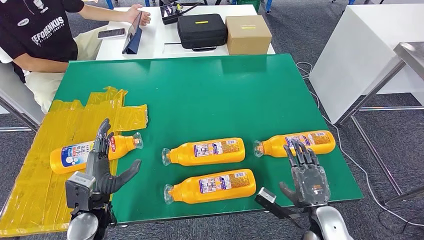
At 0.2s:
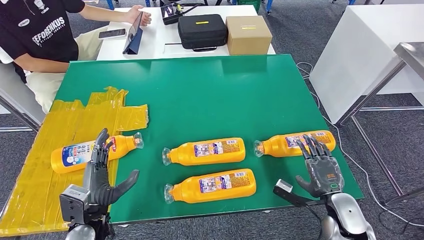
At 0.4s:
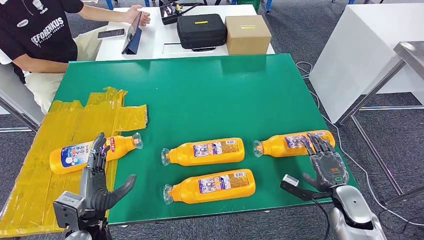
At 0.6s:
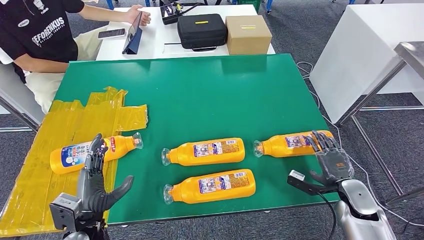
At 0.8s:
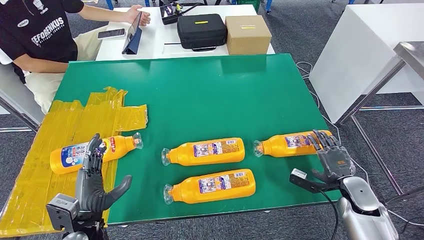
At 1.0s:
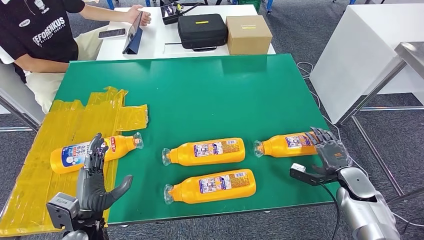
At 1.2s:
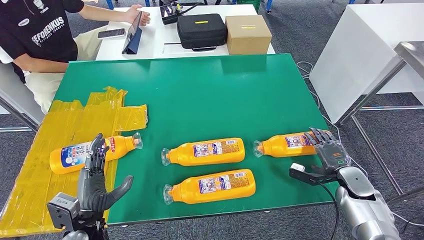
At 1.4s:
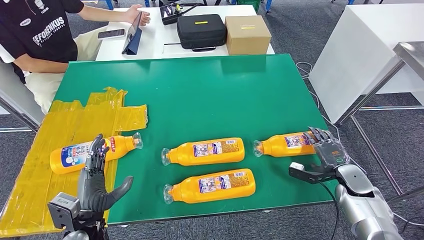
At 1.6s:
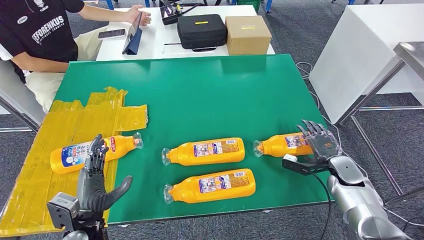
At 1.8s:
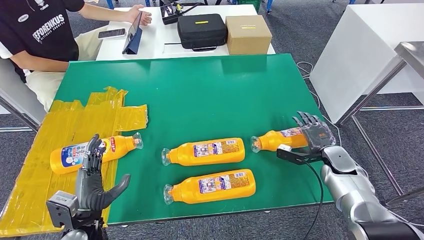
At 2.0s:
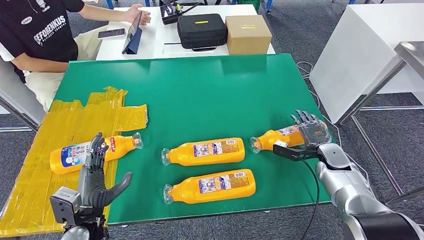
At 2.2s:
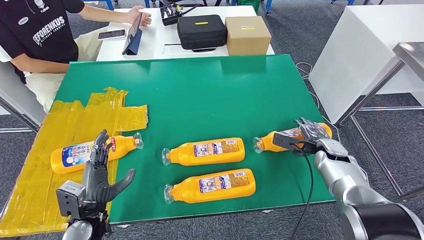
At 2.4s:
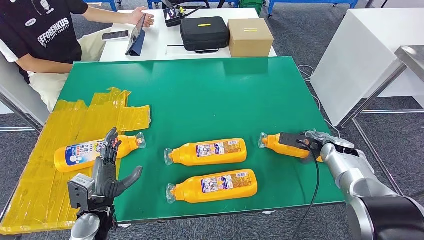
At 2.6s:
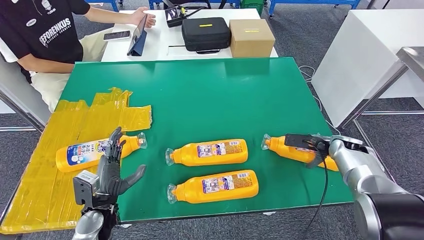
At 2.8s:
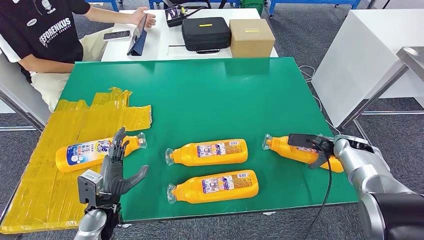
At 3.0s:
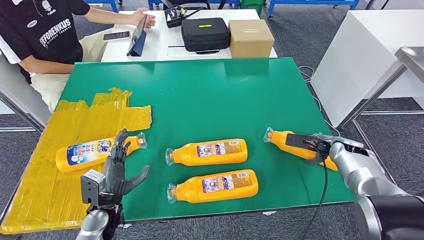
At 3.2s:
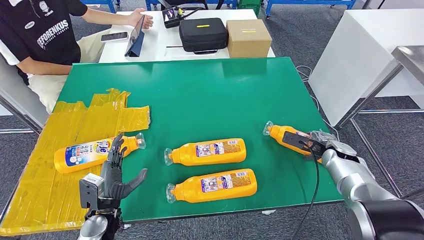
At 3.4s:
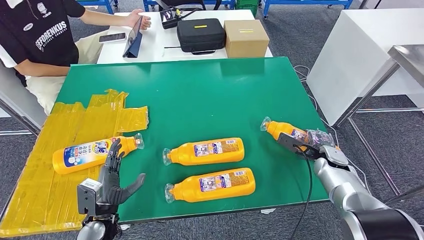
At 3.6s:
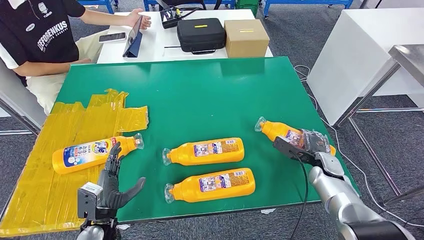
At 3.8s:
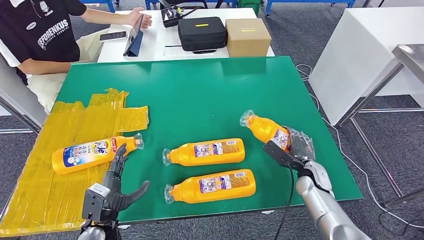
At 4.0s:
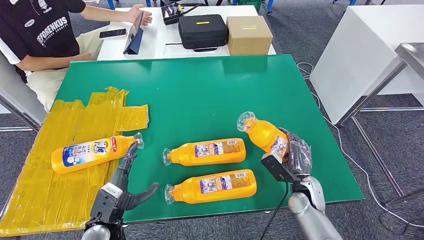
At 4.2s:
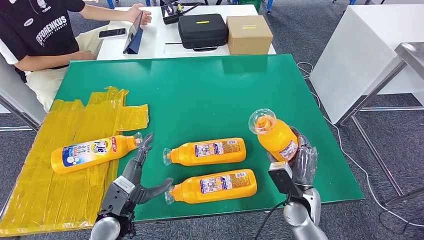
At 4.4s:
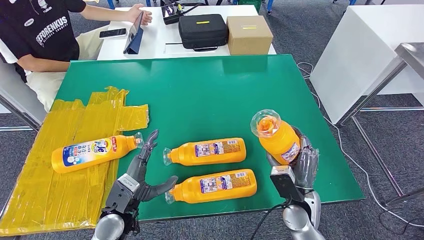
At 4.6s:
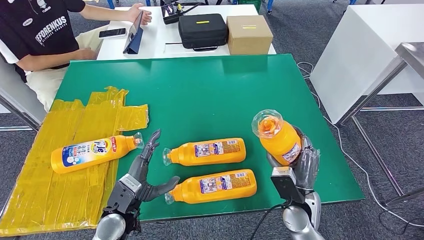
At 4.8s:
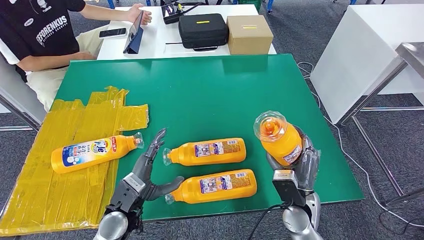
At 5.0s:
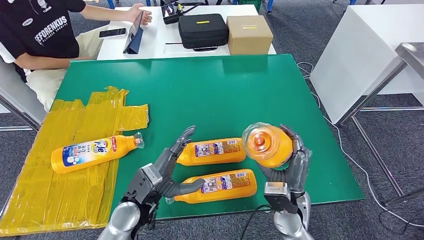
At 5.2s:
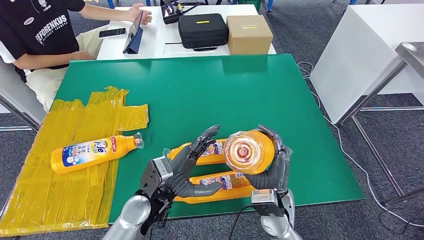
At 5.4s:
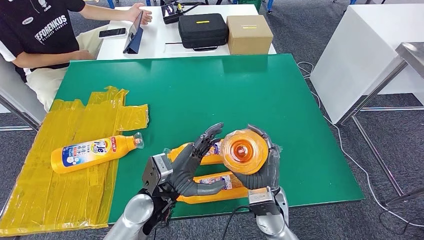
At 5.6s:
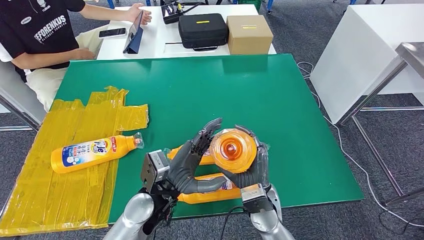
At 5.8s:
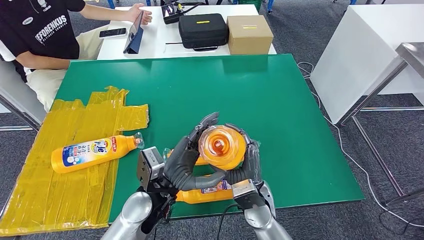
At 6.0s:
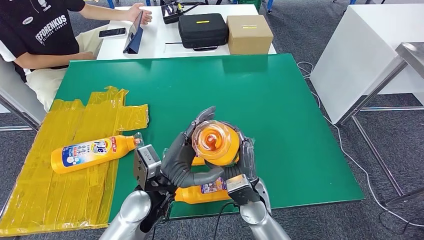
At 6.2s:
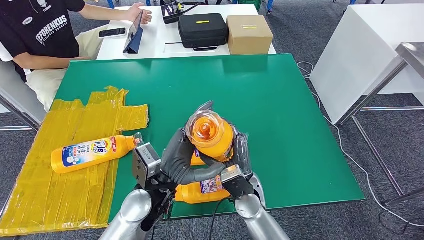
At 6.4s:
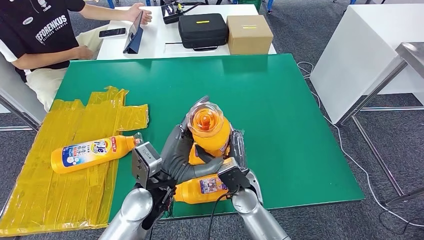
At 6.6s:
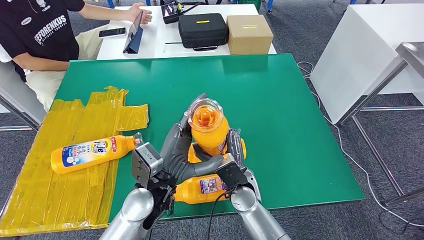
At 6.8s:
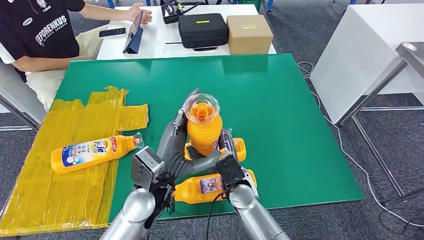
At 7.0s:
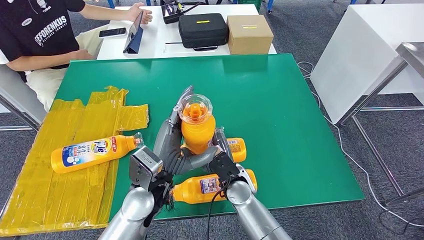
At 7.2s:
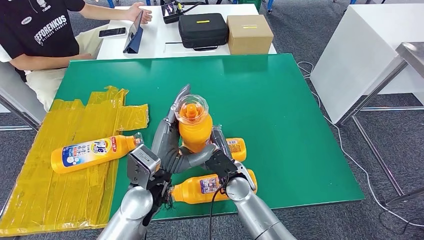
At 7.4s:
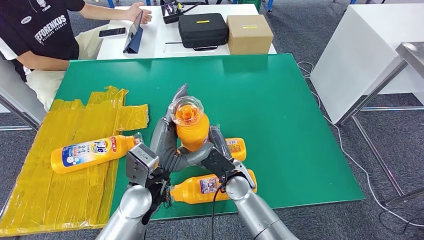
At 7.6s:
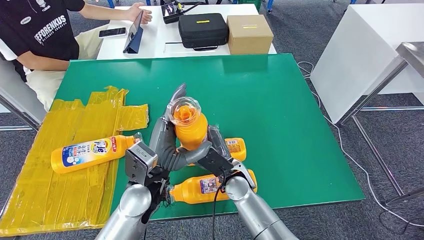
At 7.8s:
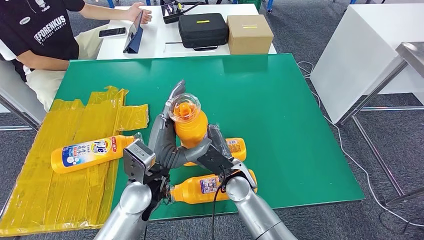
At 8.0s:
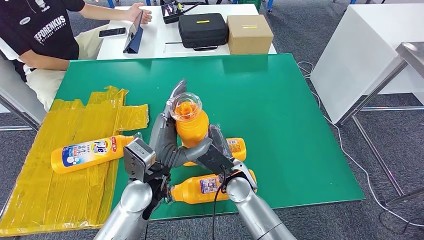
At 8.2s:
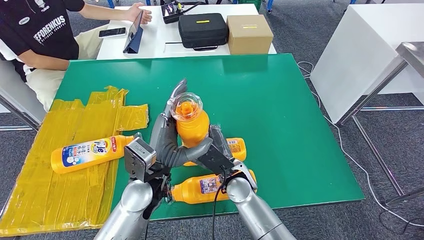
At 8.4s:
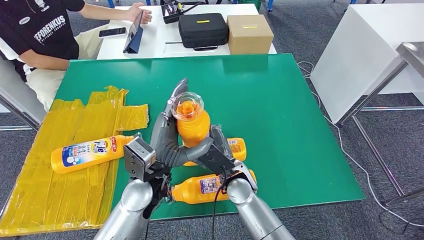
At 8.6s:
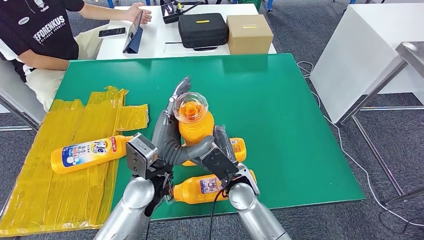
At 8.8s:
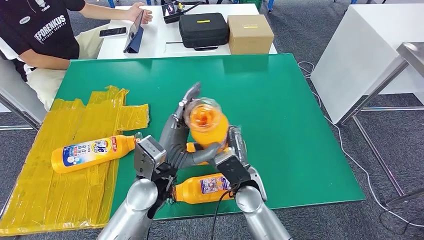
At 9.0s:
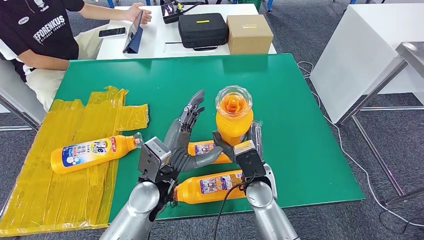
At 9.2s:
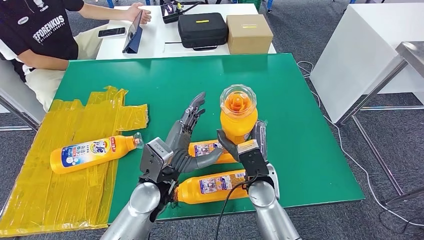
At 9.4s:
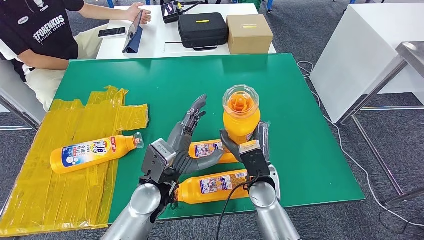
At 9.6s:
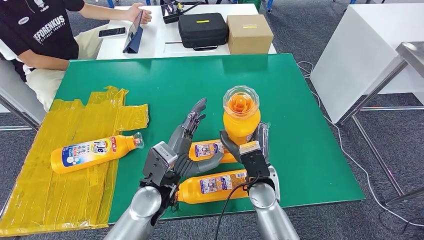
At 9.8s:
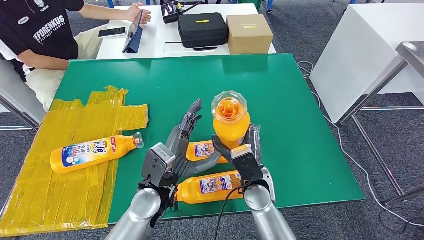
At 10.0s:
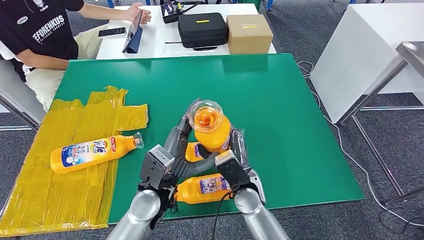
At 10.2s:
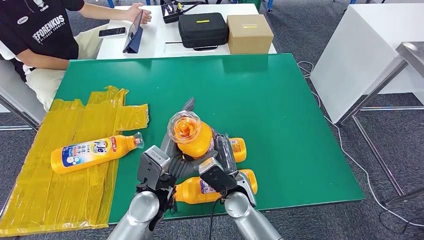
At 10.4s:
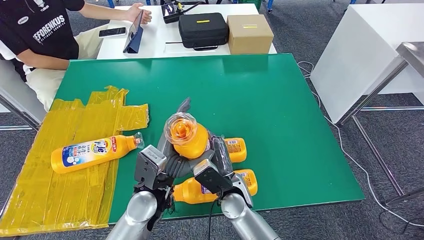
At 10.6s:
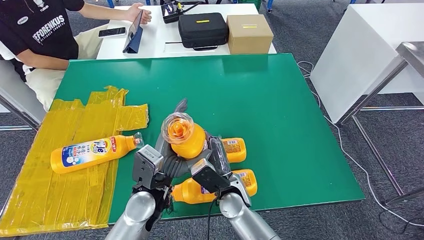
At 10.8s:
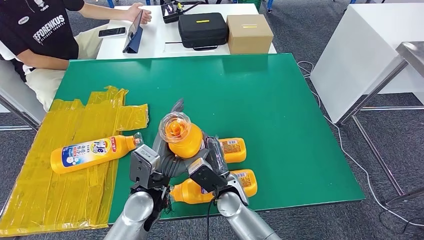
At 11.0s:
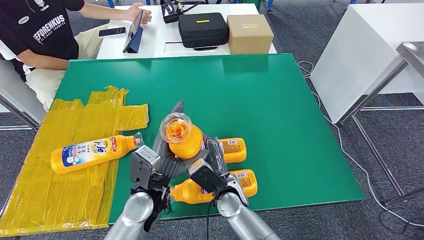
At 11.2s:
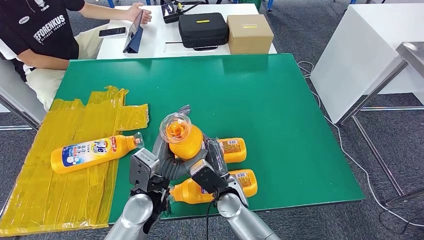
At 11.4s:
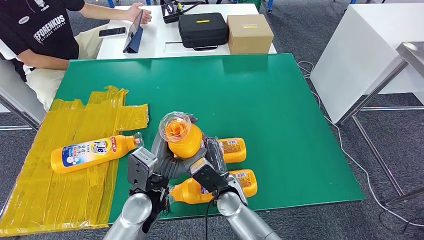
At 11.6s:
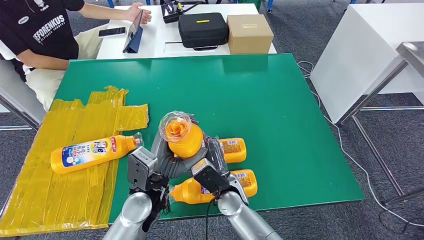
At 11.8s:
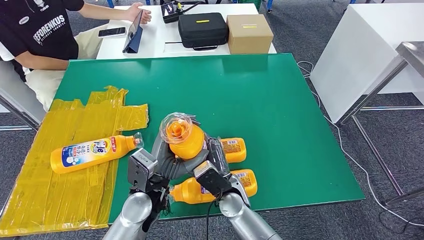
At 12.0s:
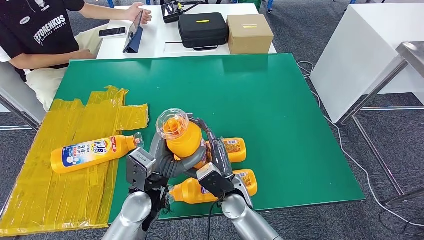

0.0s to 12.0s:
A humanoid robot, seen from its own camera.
Step, 0.0s to 6.8s: Pick up the bottle from the table.
0.0s to 1.6s: The right hand moves to the right and forward, approximately 20 cm.
4.4s to 6.0s: The left hand shifts some 15 cm to the right and upward; the right hand heads to the left, covering some 15 cm.
6.0s to 7.6s: The right hand changes place by roughly 5 cm.
7.6s to 9.0s: The right hand goes about 5 cm to the right.
9.0s to 10.4s: The right hand travels to the left by roughly 5 cm.
10.4s to 12.0s: There are only small adjustments of the hands.

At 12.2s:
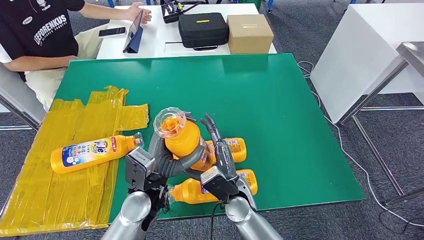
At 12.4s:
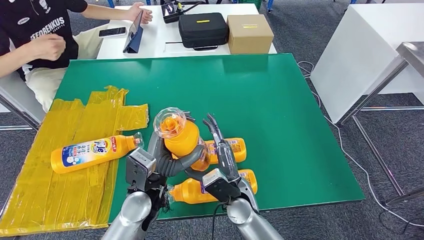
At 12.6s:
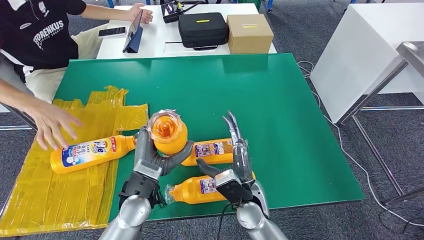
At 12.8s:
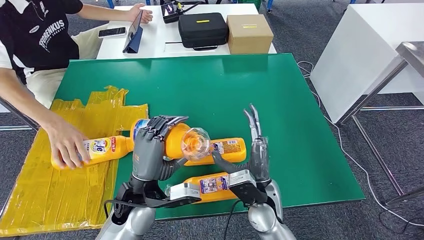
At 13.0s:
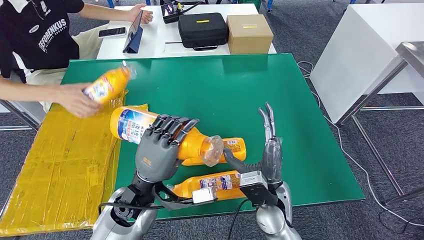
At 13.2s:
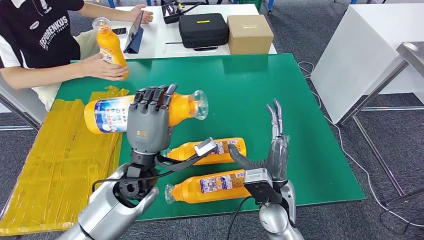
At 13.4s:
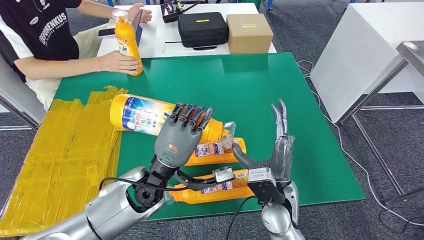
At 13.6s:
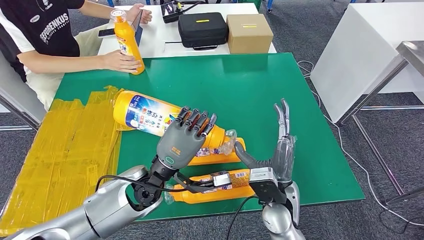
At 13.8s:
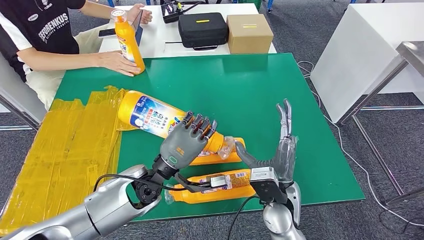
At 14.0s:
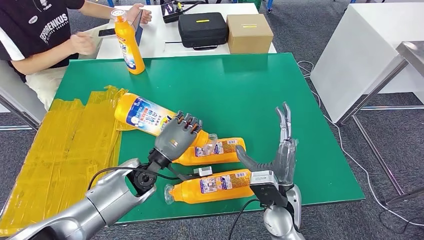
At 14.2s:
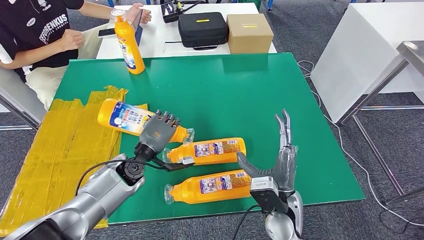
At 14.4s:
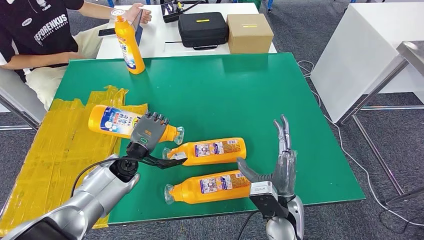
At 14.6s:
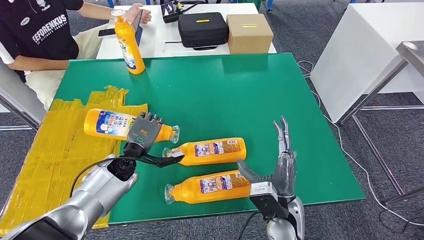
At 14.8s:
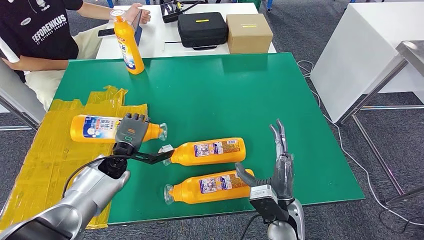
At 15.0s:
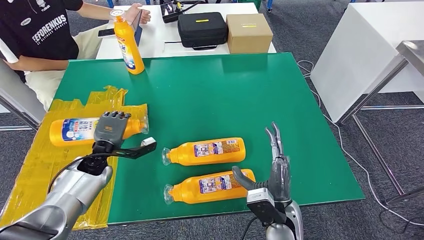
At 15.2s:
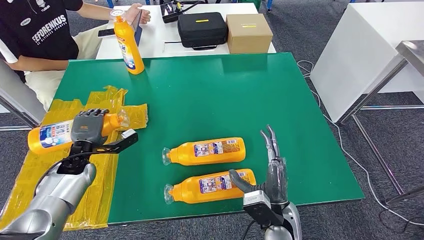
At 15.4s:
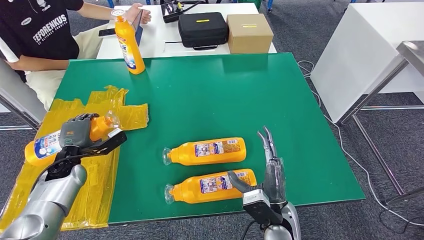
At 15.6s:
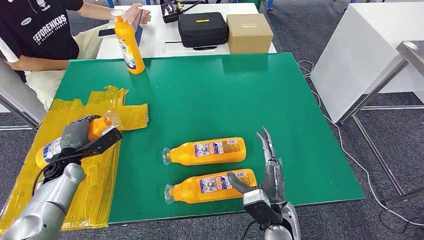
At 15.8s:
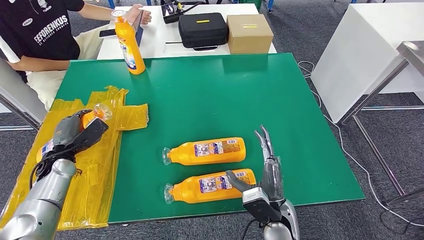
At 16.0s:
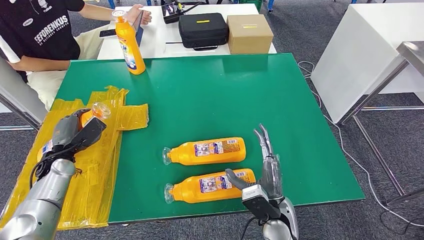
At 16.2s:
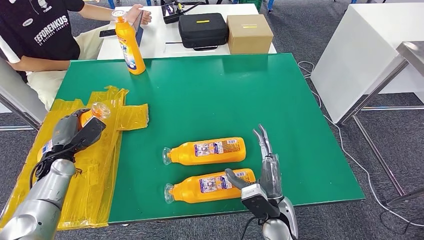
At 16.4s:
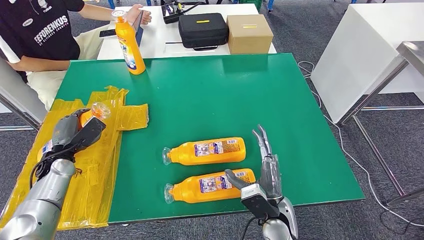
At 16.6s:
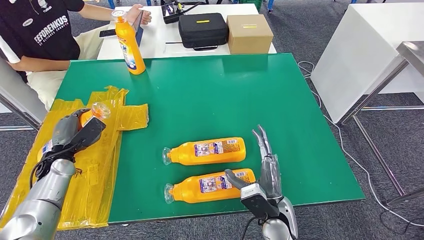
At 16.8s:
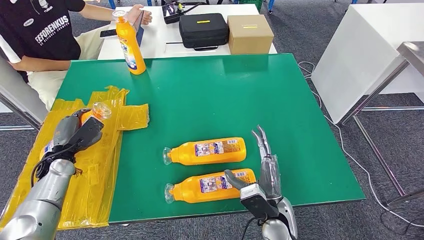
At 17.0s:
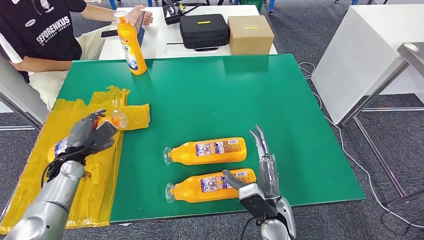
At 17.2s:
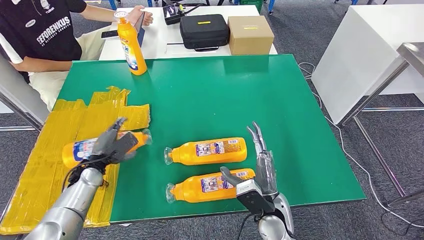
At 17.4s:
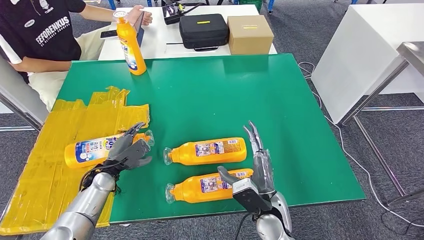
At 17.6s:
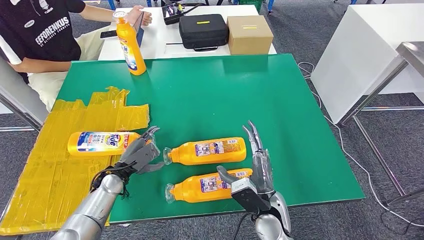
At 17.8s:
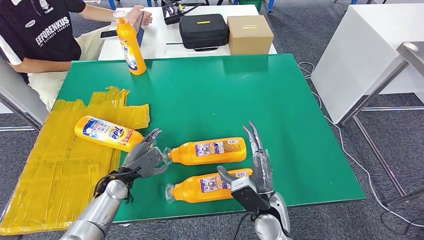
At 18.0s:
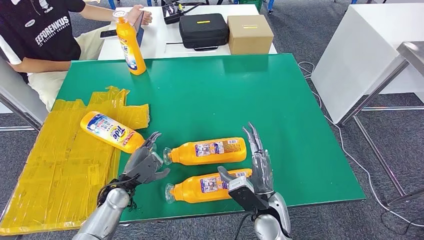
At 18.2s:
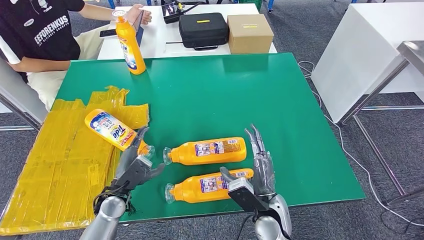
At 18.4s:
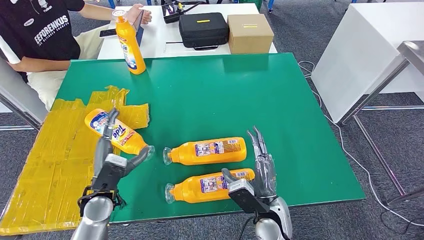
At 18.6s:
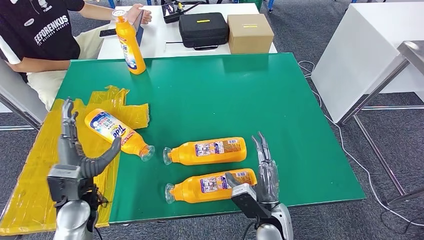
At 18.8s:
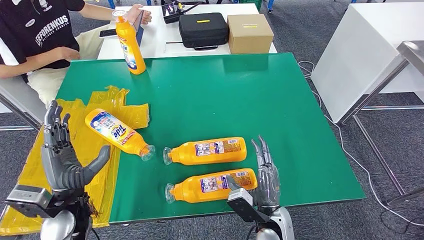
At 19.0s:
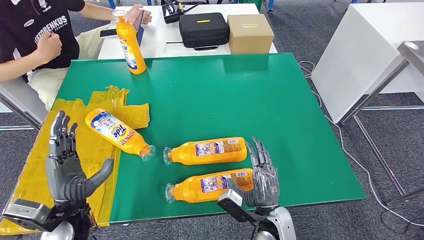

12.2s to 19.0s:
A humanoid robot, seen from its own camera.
Step, 12.2s to 18.6s: Flip the bottle to face forward.
15.0s to 16.2s: The left hand heads to the left, covering roughly 10 cm.
16.2s to 17.6s: The left hand shifts about 15 cm to the right.
17.6s to 19.0s: The left hand moves backward and upward, roughly 15 cm.
